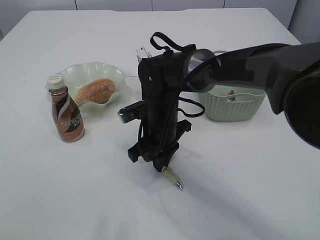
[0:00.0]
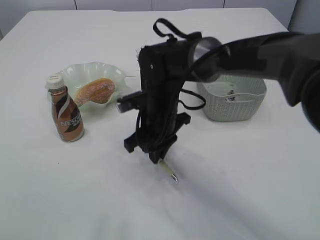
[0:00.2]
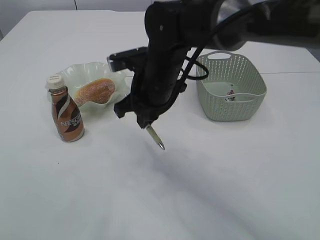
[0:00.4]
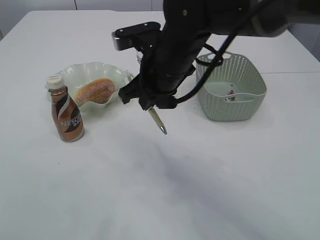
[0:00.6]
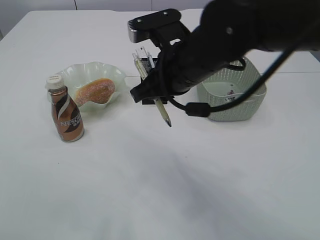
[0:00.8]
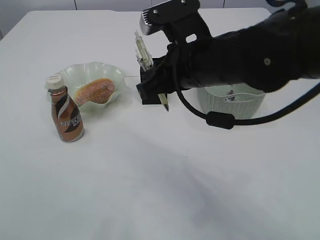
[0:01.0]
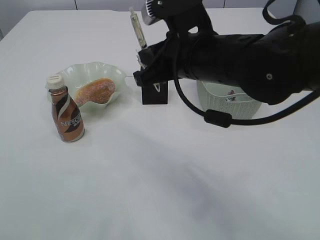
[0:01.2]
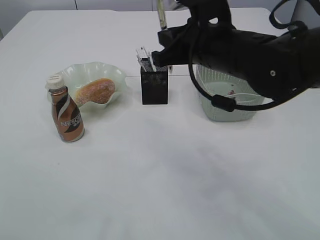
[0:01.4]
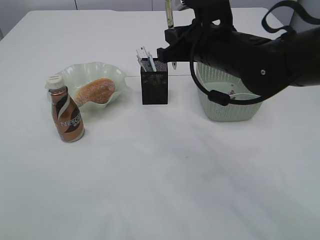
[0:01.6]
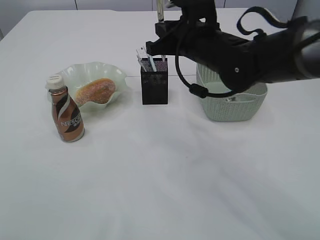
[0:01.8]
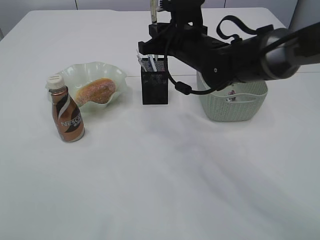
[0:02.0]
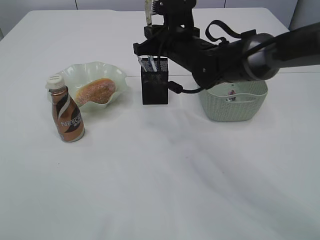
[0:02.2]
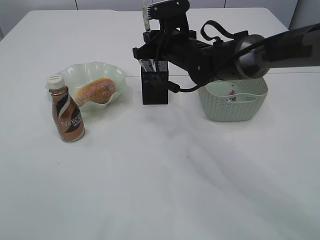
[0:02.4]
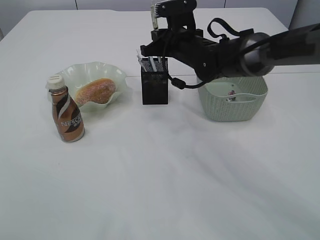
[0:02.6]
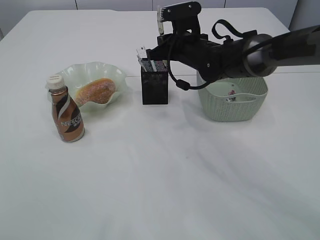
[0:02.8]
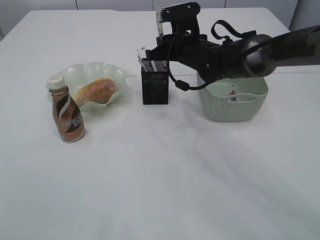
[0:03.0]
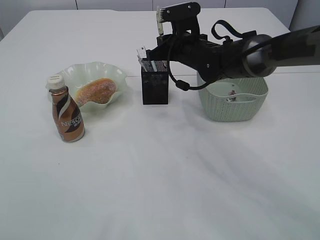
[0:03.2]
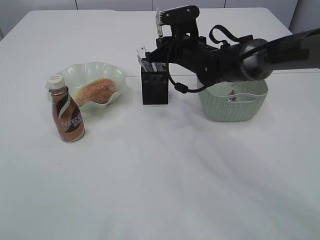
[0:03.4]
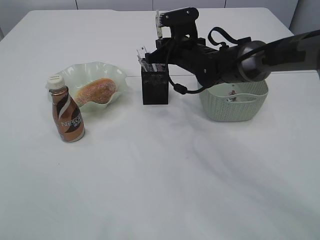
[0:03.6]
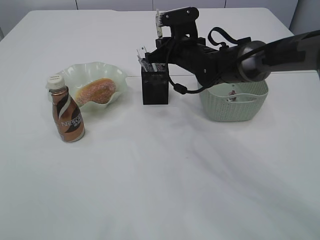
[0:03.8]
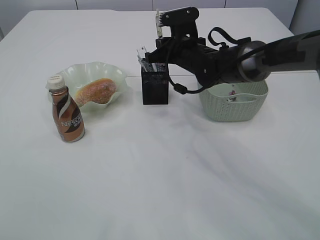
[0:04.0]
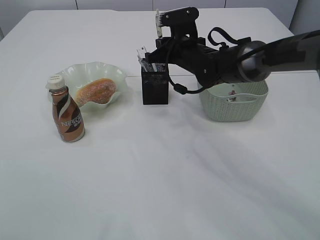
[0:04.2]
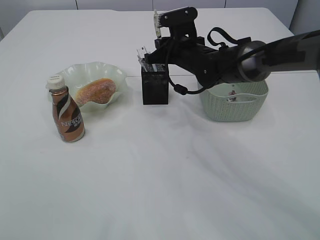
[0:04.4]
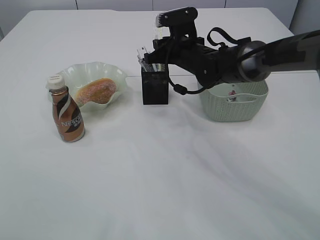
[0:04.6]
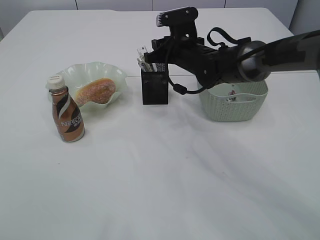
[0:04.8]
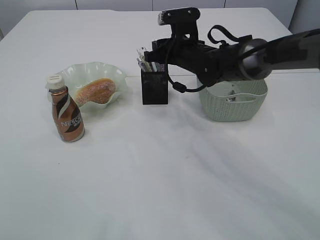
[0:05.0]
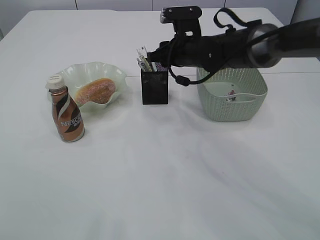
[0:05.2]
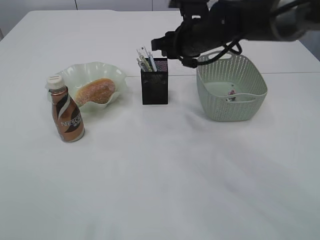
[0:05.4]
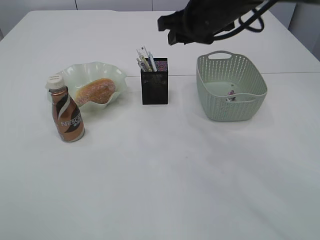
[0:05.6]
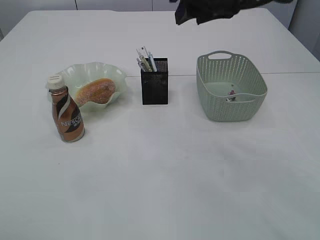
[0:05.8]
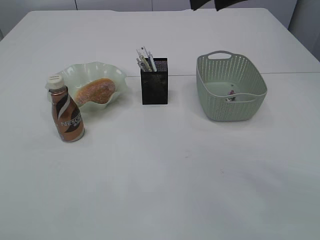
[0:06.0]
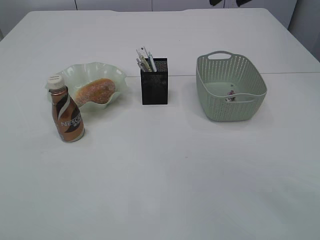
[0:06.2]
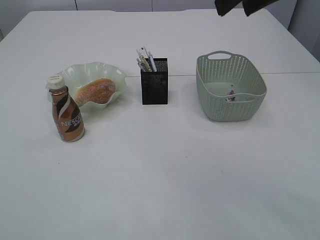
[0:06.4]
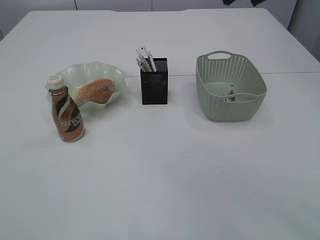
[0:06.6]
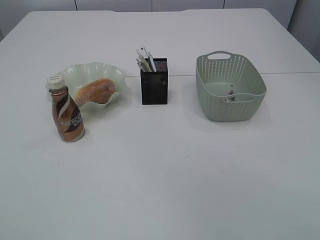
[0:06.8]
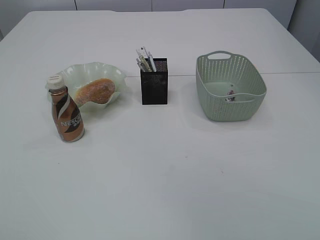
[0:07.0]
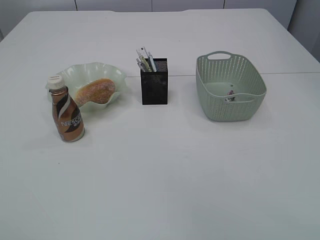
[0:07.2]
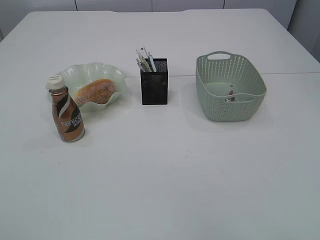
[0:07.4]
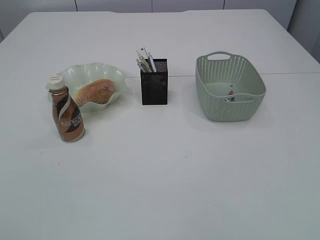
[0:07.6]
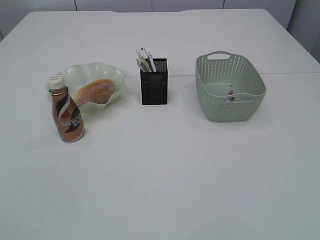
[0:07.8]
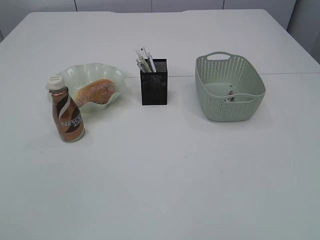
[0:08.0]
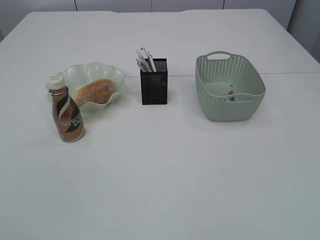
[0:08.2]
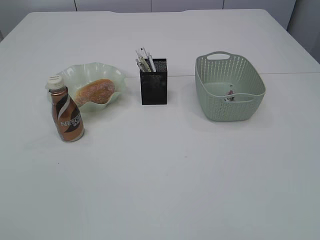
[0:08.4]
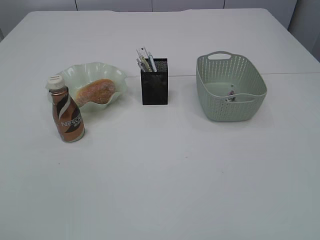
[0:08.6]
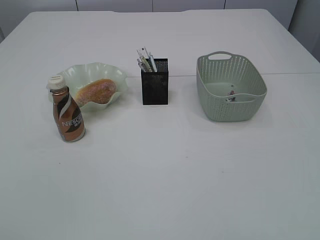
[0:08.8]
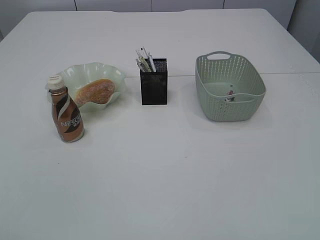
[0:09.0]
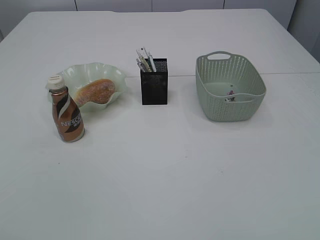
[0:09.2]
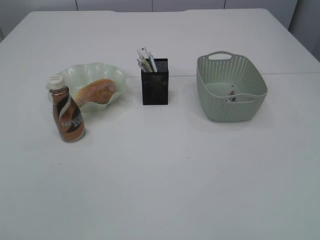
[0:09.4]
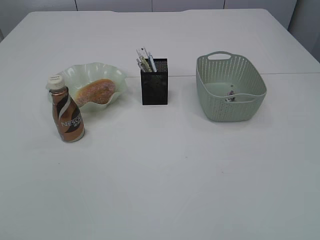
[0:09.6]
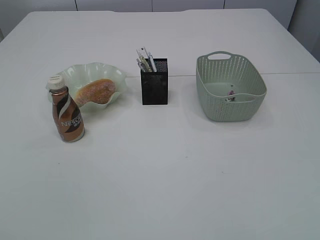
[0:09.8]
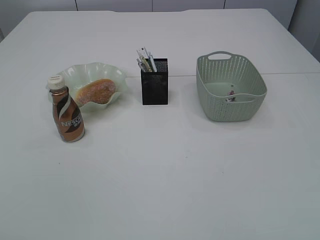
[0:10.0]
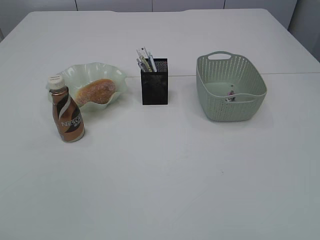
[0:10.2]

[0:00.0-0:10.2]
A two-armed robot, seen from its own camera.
Step, 0:00.8 to 0:05.4: Place the pen into the pen holder.
0:00.0 to 0:01.4: The right gripper travels upward and to the right by approximately 15 cm.
0:01.4 to 0:03.0: The right gripper moves forward and downward, approximately 15 cm.
0:03.0 to 0:04.4: Both grippers stay about where they are.
0:04.4 to 0:05.8: The left gripper goes some 5 cm backward. Meanwhile the right gripper heads upward and backward, covering roughly 20 cm, and opens up.
0:05.8 to 0:07.2: The right gripper goes roughly 30 cm backward, to the right and upward. The left gripper travels backward, downward and to the left by some 25 cm.
